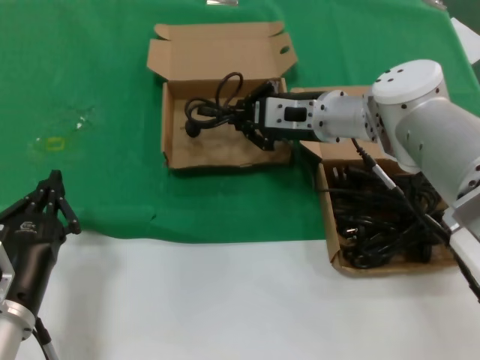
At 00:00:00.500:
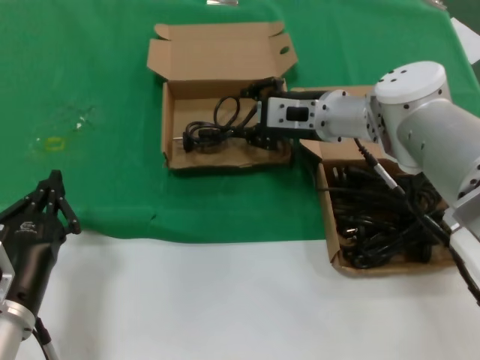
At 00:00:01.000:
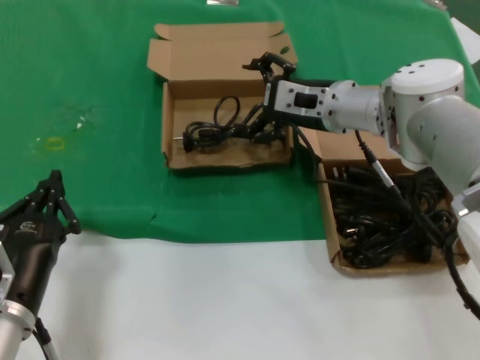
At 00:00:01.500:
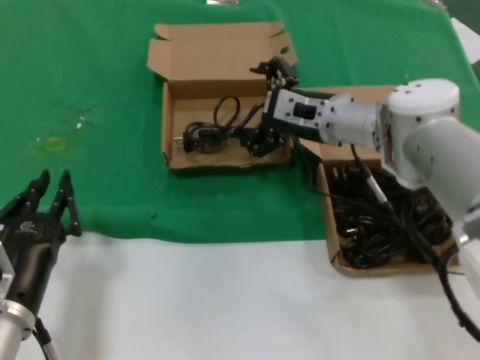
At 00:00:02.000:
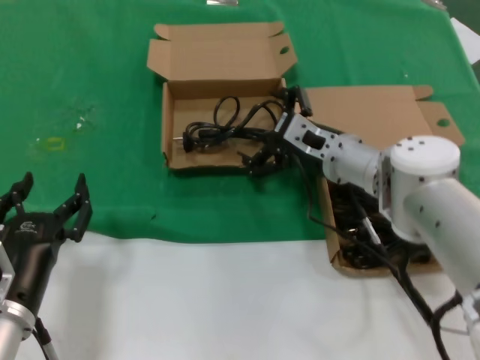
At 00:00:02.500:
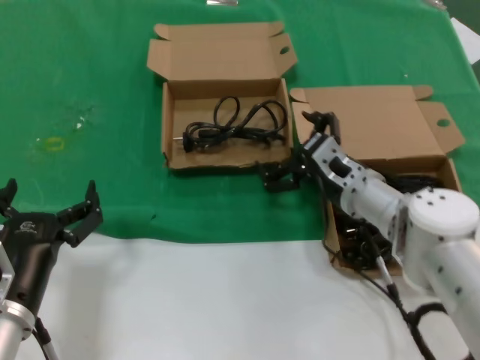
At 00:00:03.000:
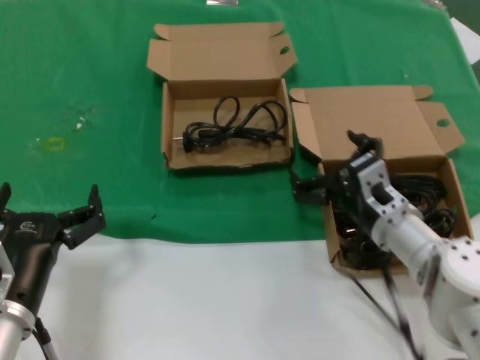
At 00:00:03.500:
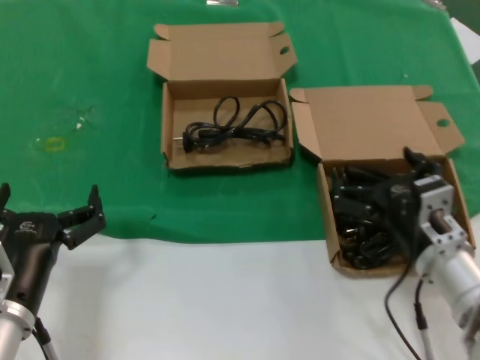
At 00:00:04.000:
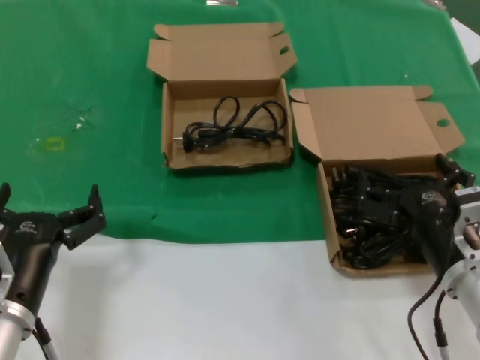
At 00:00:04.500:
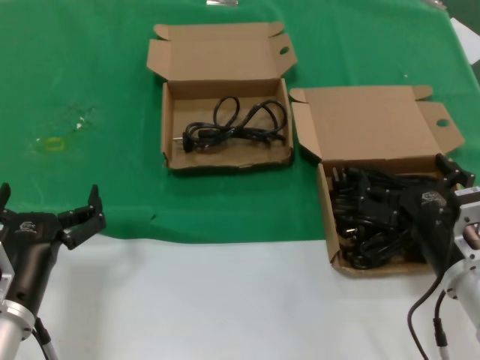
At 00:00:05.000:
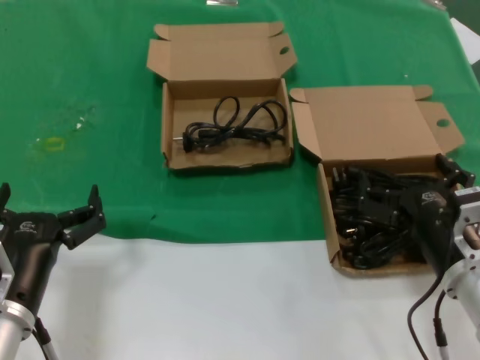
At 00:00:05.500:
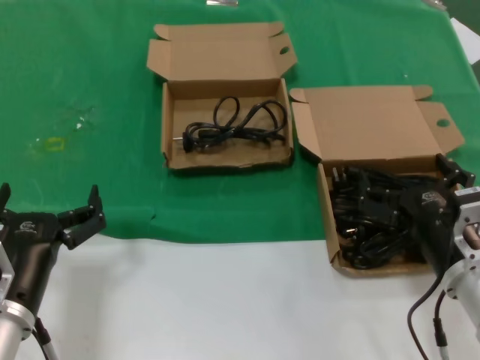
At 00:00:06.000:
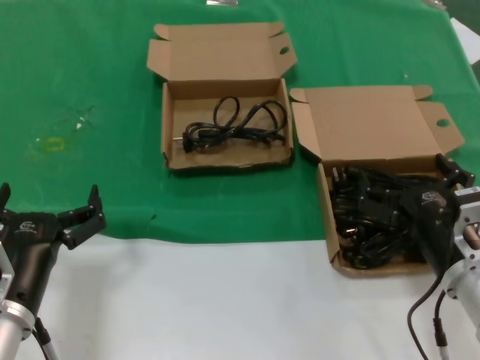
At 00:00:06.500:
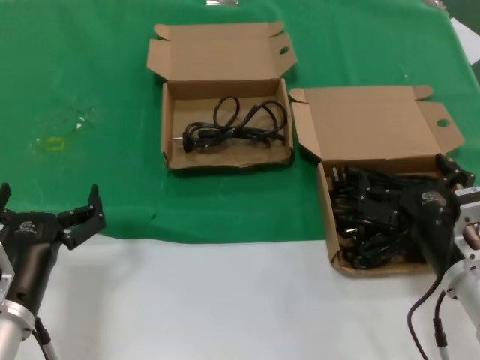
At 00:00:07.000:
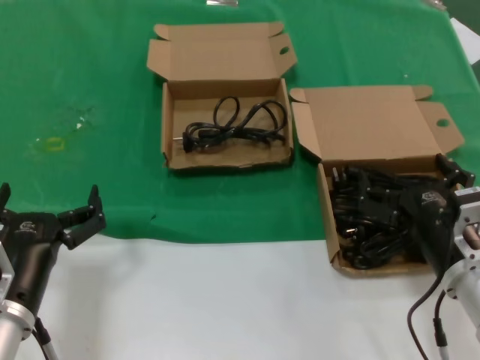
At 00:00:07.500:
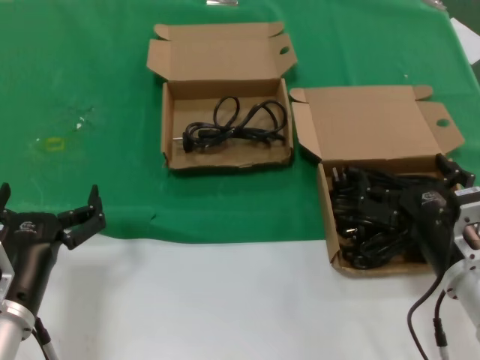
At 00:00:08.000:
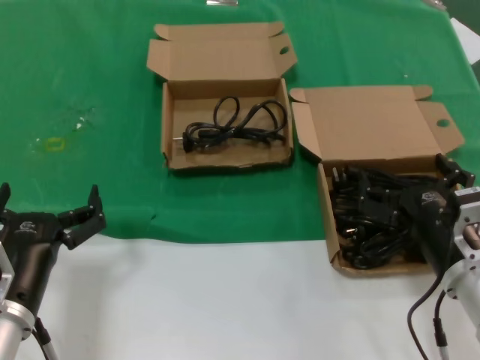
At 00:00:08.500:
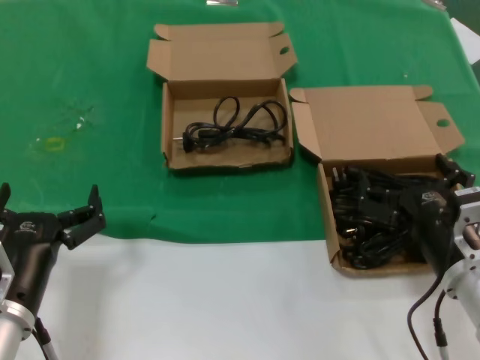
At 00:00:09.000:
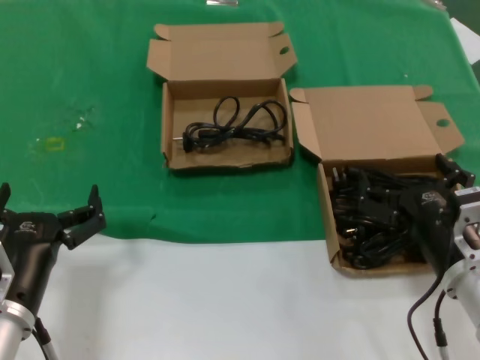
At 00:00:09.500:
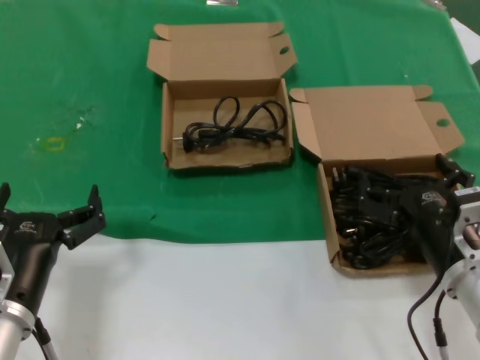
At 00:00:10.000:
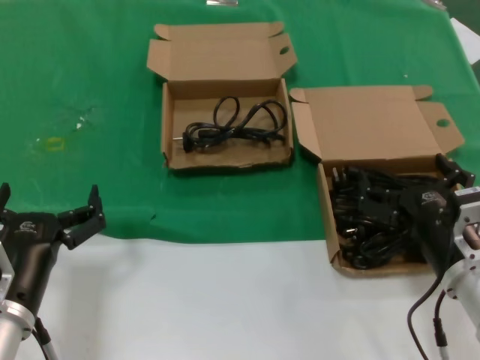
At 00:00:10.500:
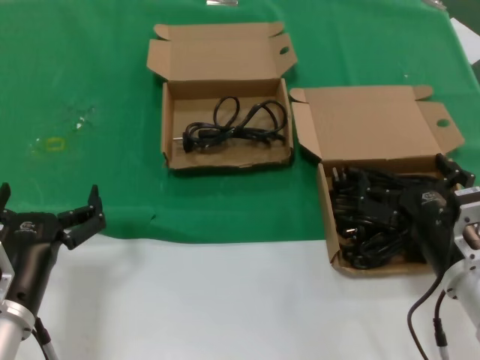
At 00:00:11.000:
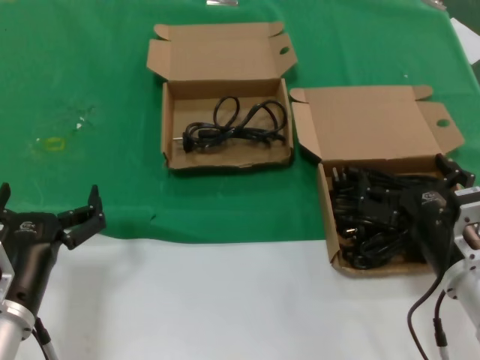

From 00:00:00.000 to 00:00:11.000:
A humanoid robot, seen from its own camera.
Task of the whole recording: take the parts from the box containing them and put them into an empty box.
From 00:00:00.000 to 00:00:02.000: The right hand goes some 5 cm downward.
From 00:00:02.000 to 00:00:03.500: The right hand shifts some 20 cm backward and to the right.
From 00:00:03.500 to 00:00:05.500: The hands stay close to where they were, moving slightly.
From 00:00:05.500 to 00:00:11.000: Neither hand changes place.

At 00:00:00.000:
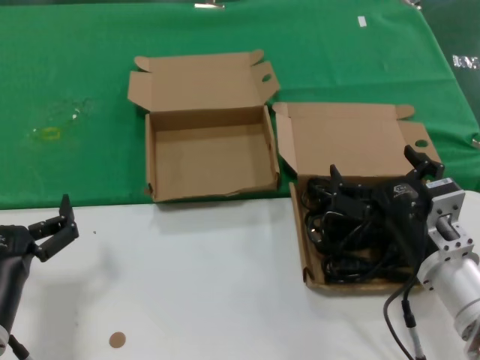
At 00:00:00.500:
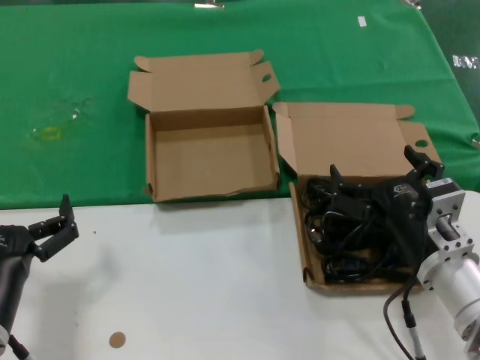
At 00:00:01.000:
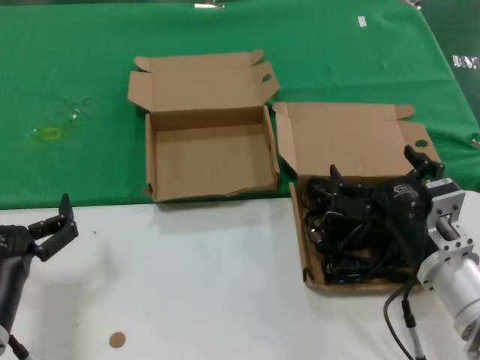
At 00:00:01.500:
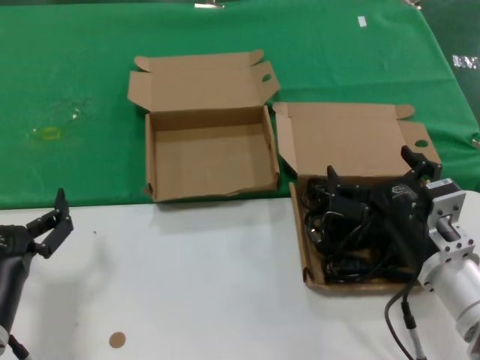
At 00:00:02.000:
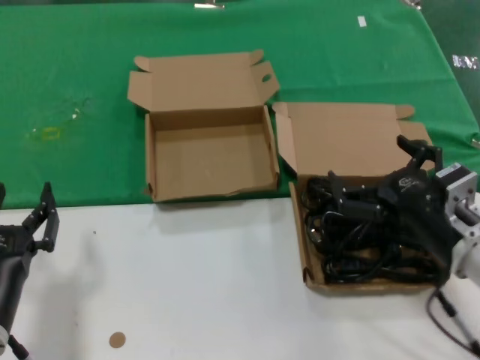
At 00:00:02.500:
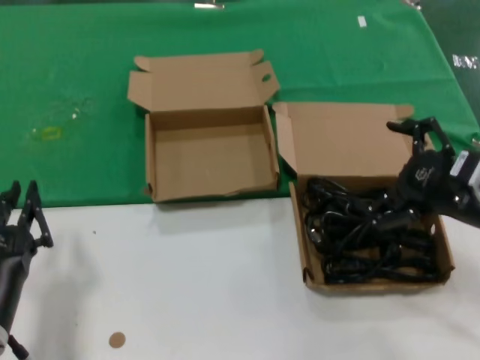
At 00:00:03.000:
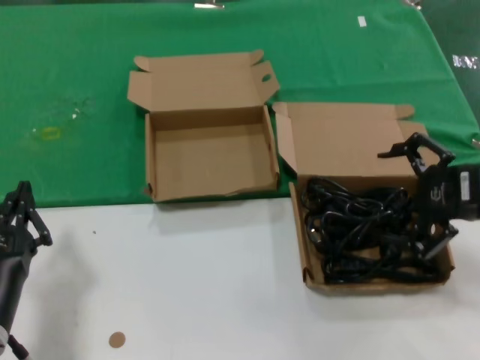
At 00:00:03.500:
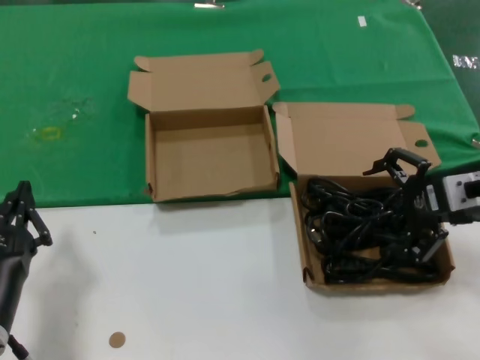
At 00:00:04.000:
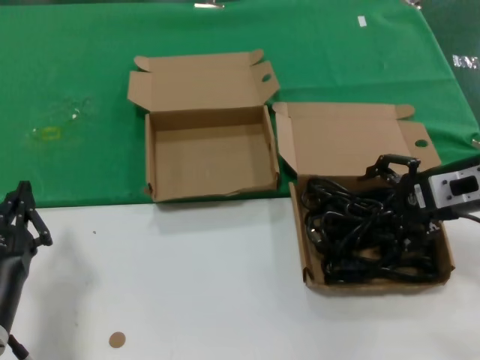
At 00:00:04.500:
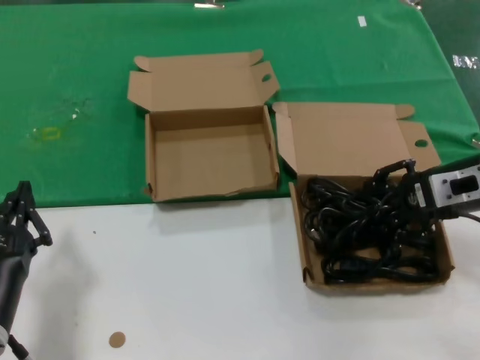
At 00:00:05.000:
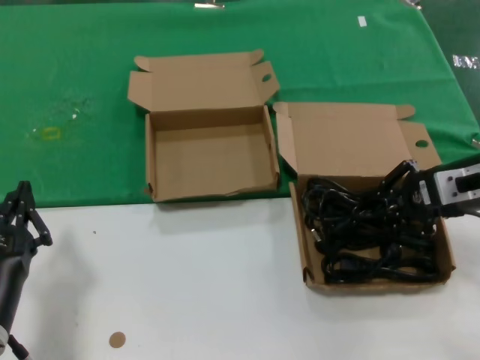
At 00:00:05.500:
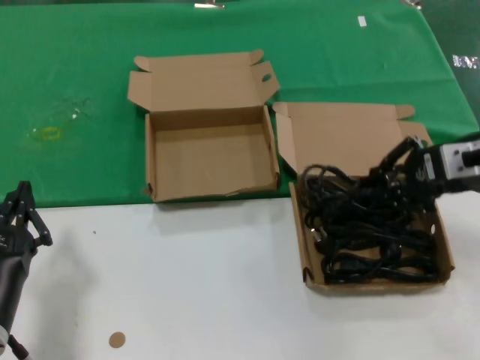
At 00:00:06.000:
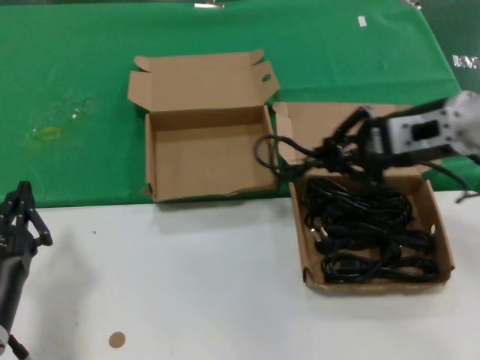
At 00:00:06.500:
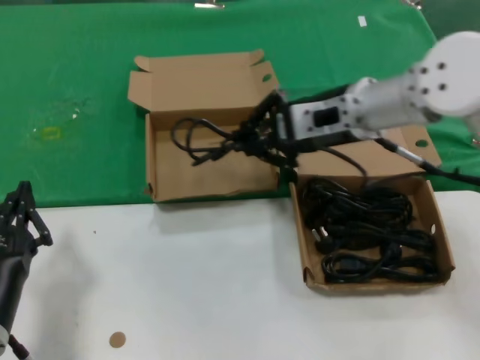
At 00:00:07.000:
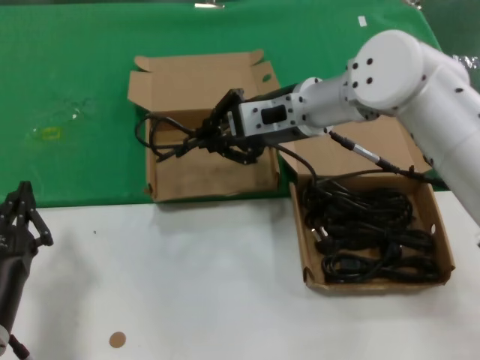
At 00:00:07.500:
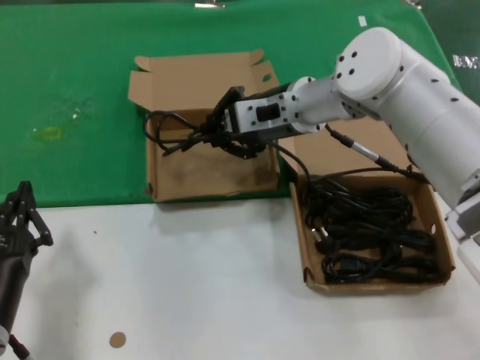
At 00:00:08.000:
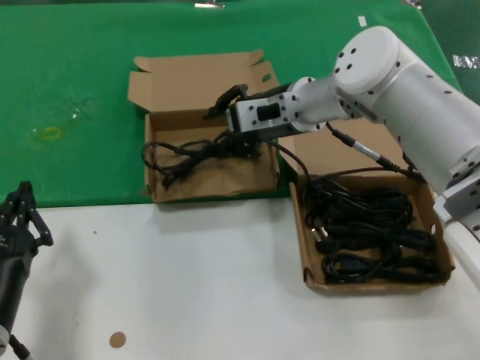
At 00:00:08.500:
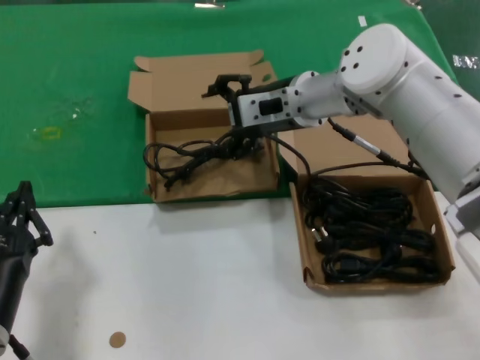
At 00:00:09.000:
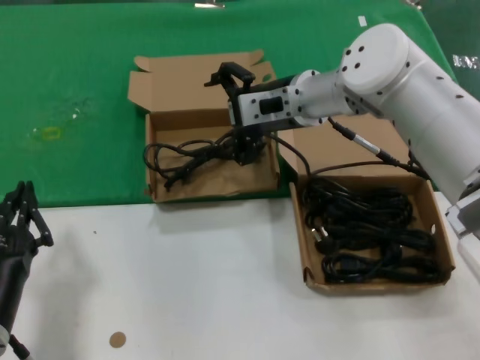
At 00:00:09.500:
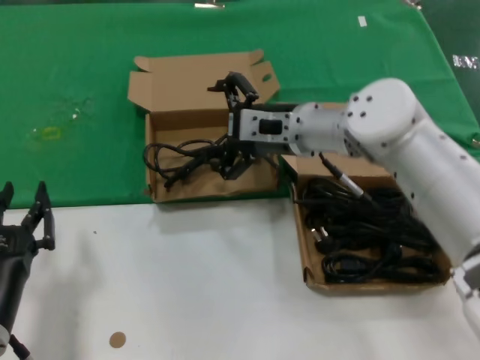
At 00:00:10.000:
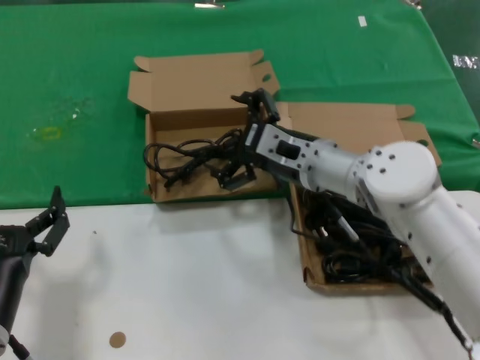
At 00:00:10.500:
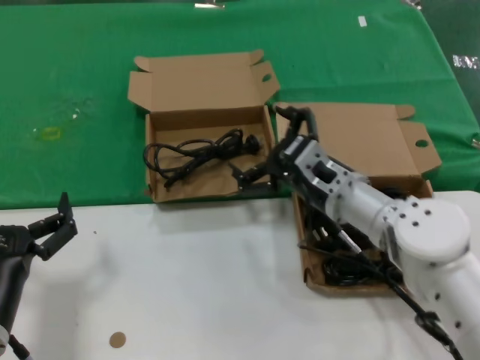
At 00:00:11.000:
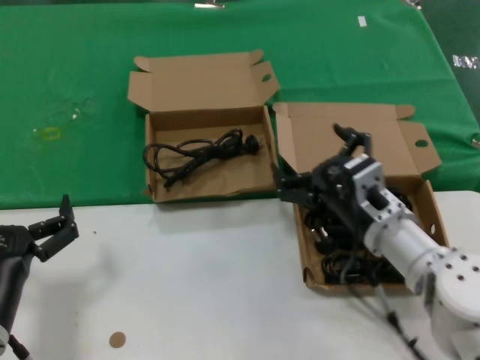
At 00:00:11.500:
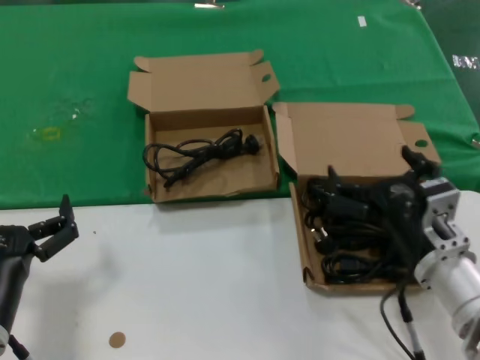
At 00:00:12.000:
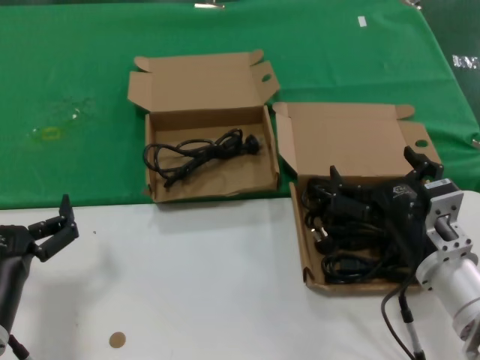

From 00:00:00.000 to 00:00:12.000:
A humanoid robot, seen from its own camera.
Task of the whole recording: take the parts from the box containing them and put them into an empty box.
Step, from 00:00:00.000 to 00:00:04.500: Grasp the data cable.
Step, from 00:00:05.000 to 00:00:08.000: Place the data cable in the another box.
From 00:00:00.000 to 00:00:02.000: There are only small adjustments of the hands.
From 00:00:02.000 to 00:00:04.000: The right hand shifts approximately 15 cm forward, upward and to the right.
From 00:00:04.000 to 00:00:06.000: The right hand goes some 10 cm upward and to the left.
From 00:00:06.000 to 00:00:08.000: The right hand is displaced to the left and forward by about 20 cm.
From 00:00:08.000 to 00:00:10.000: The right hand moves downward and backward, roughly 10 cm.
From 00:00:10.000 to 00:00:12.000: The right hand moves backward, to the right and downward, some 20 cm.

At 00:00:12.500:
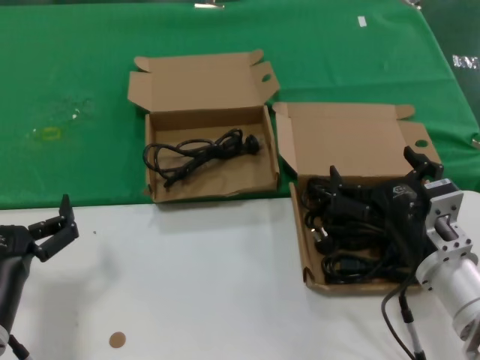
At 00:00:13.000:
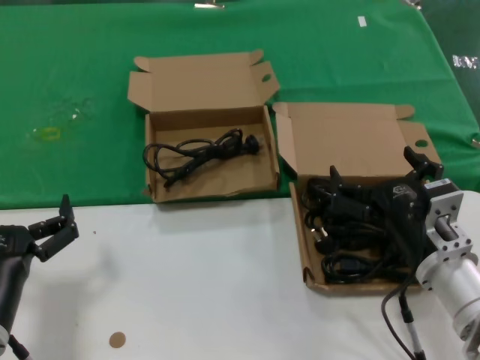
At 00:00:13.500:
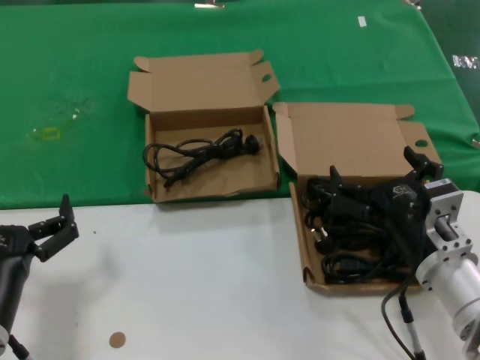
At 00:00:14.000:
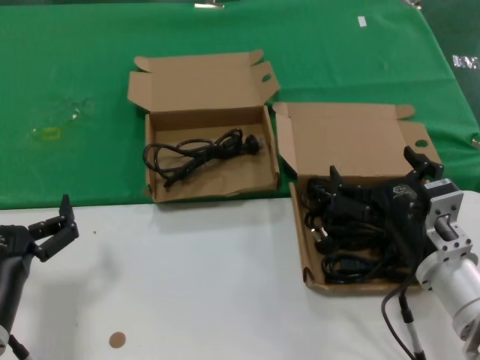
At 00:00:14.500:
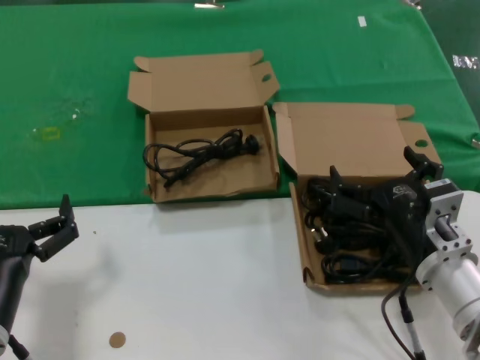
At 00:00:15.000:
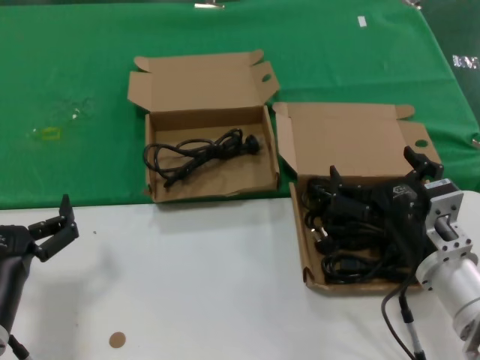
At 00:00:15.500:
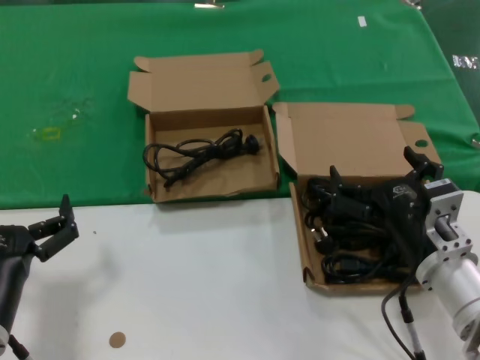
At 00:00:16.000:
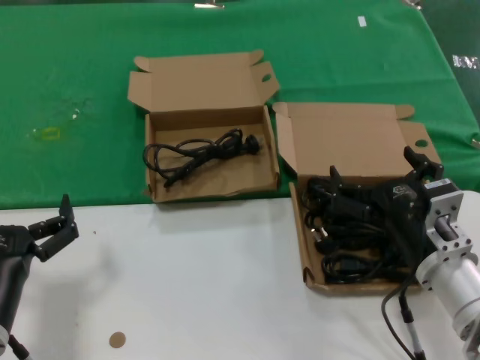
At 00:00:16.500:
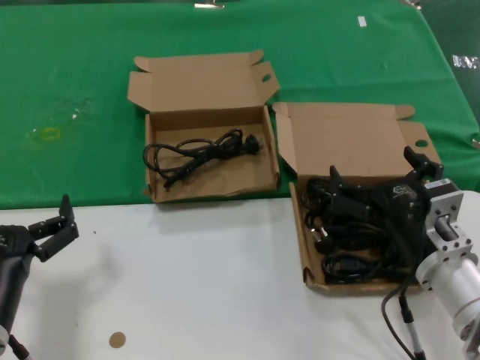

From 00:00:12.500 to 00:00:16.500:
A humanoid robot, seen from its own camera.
Task of the whole recording: take the parts from the box containing them and put them into an empty box.
From 00:00:12.500 to 00:00:16.500: Neither hand changes place.
